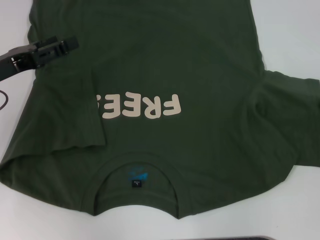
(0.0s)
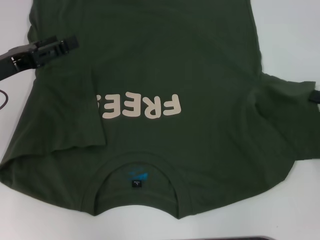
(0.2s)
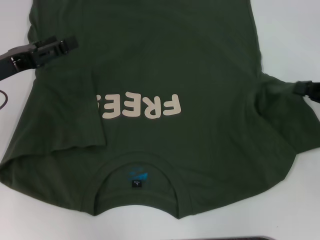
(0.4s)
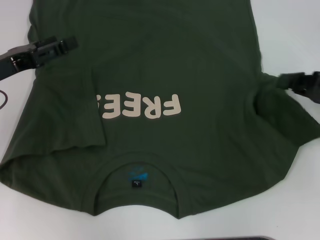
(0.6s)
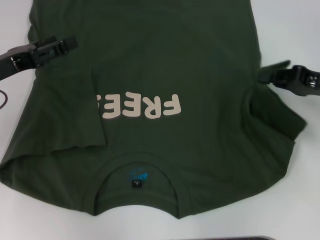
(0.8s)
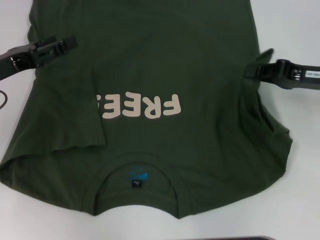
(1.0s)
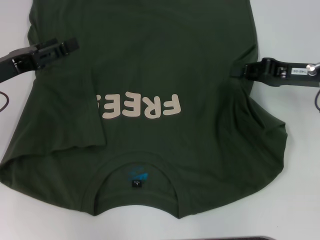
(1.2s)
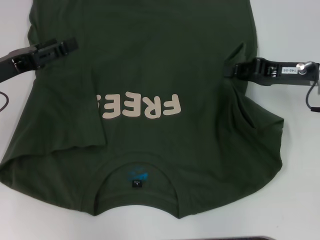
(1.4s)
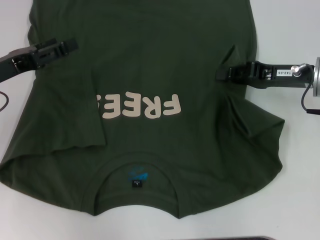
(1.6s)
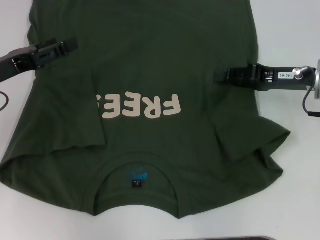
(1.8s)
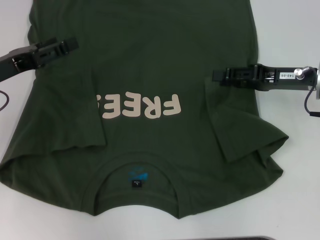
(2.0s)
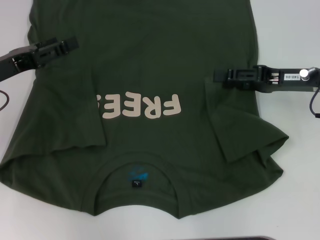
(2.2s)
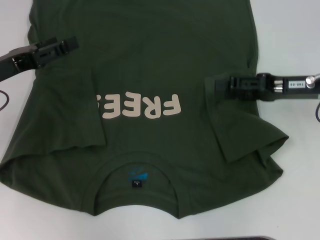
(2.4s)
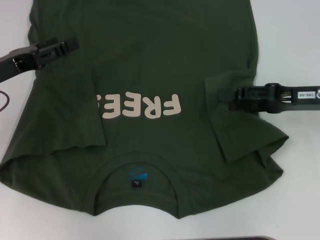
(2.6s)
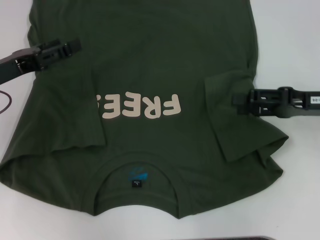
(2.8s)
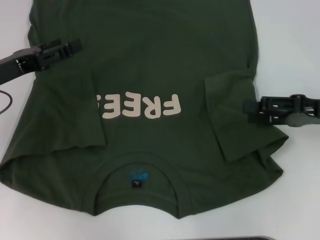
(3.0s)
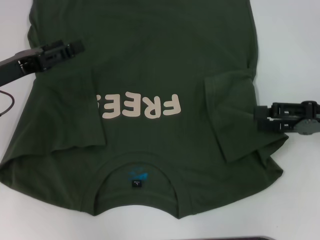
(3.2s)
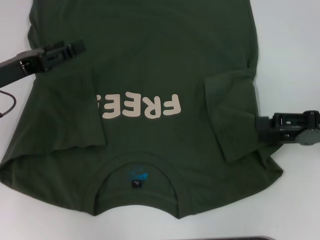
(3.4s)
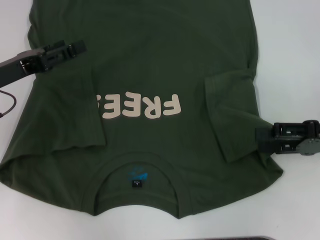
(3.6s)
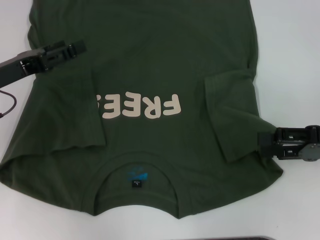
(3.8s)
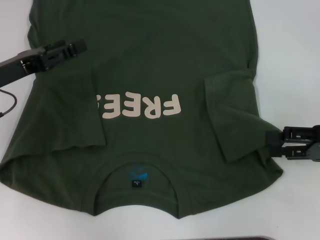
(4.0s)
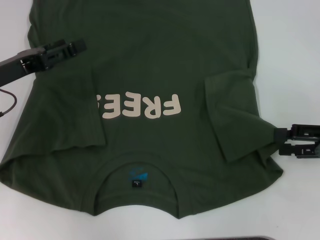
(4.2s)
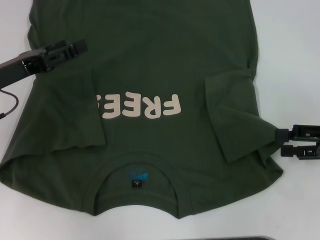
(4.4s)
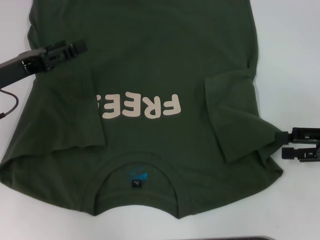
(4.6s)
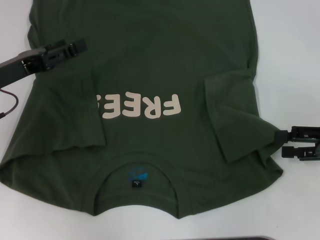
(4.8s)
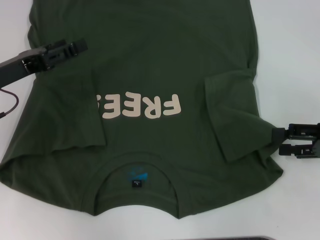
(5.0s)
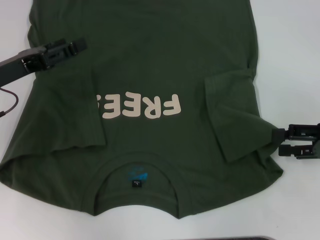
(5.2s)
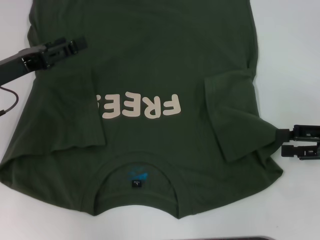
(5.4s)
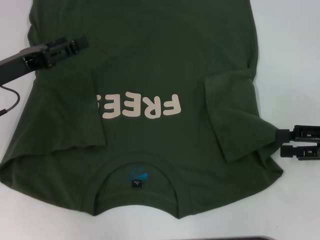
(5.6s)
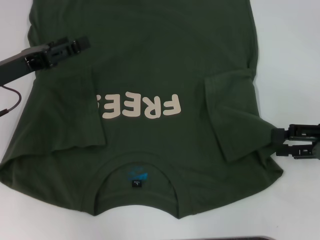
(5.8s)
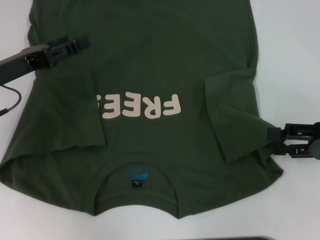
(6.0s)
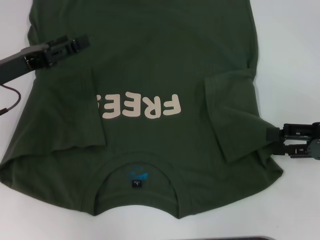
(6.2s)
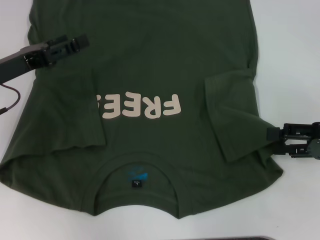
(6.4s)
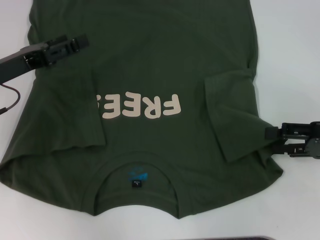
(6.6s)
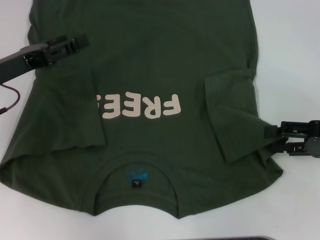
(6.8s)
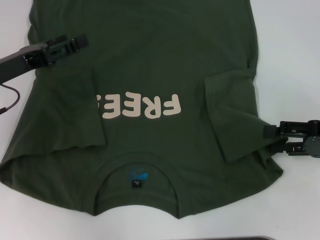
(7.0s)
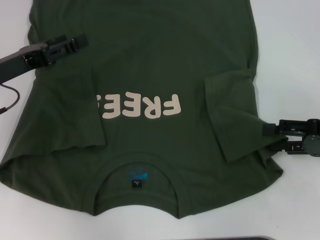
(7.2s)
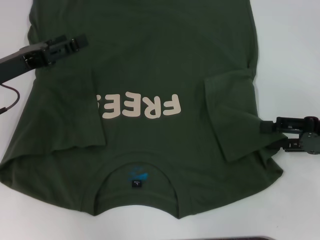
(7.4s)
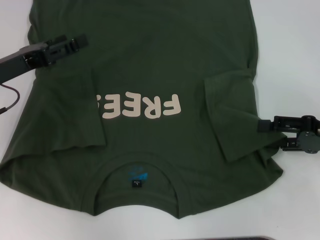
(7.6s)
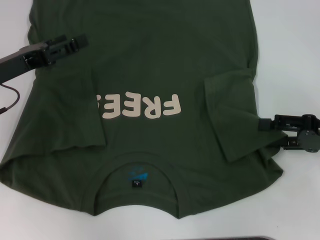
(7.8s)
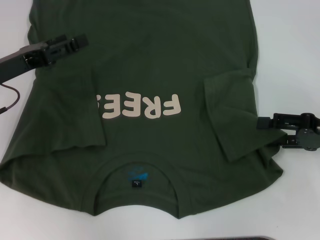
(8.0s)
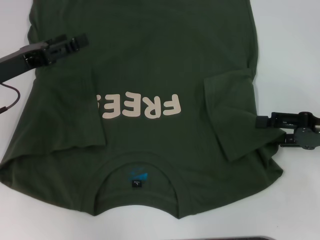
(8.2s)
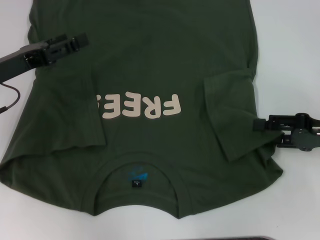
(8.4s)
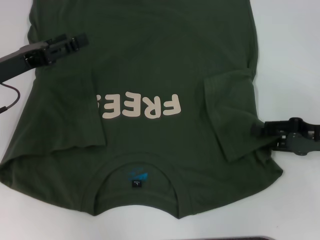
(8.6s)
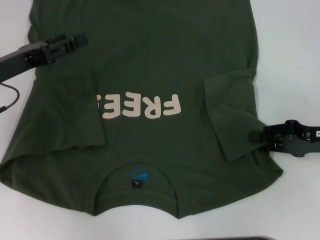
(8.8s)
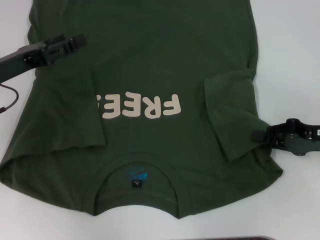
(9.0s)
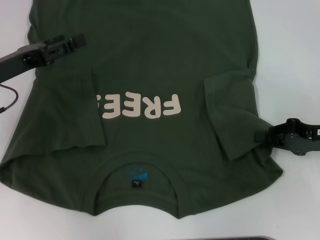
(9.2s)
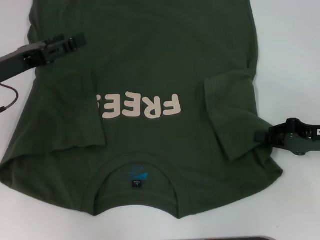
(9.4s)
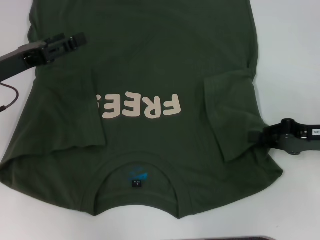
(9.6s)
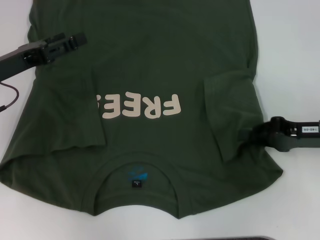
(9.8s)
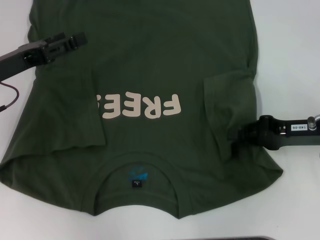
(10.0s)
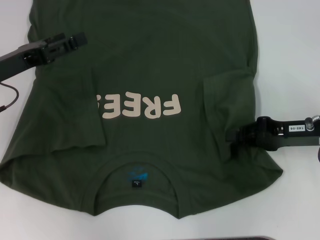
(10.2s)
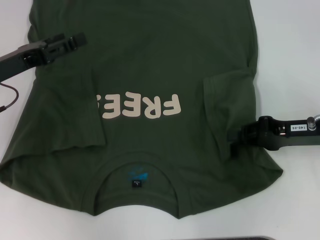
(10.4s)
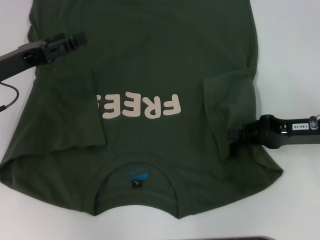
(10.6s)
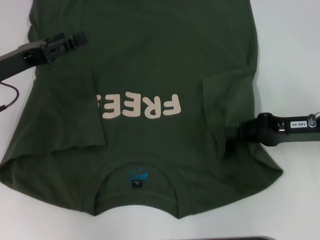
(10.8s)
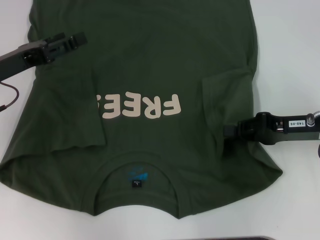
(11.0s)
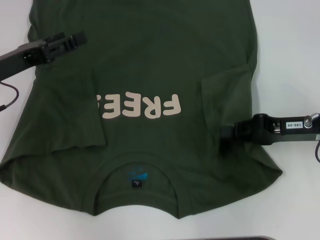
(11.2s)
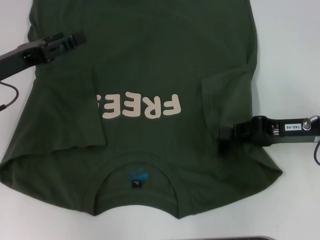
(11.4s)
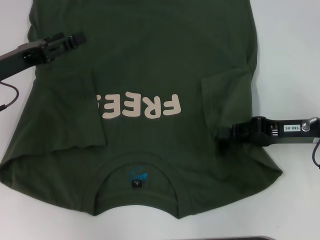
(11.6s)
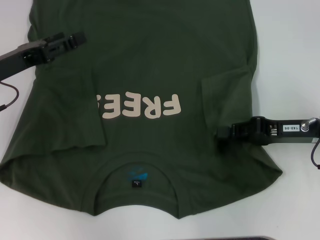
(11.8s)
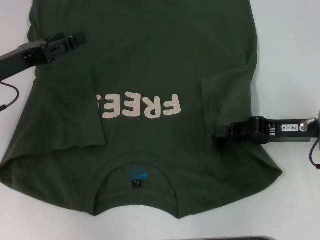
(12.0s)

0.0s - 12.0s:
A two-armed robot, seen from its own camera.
0.0s - 1.6s: The right gripper shifts approximately 15 cm to the left and forward.
1.6s - 3.0s: The right gripper is displaced backward by some 5 cm, and opens.
3.0s - 4.4s: The right gripper changes place by about 5 cm.
4.4s - 6.0s: Neither gripper changes place.
6.0s - 7.6s: There are only small adjustments of the grippers.
7.6s - 9.0s: The right gripper closes.
9.0s - 10.4s: The right gripper closes up.
10.4s - 12.0s: The grippers make only small movements.

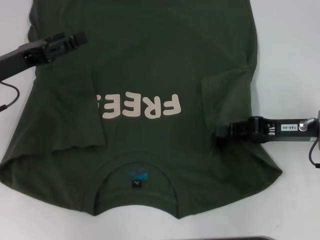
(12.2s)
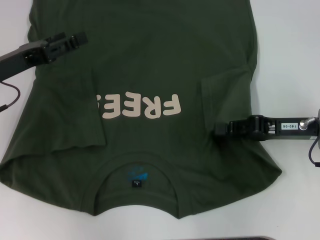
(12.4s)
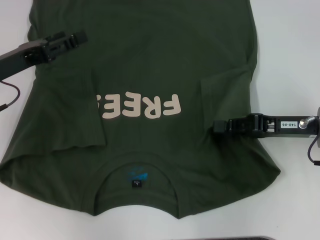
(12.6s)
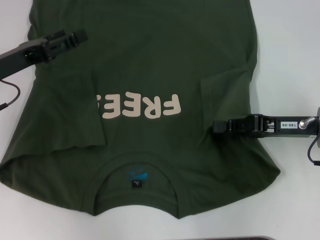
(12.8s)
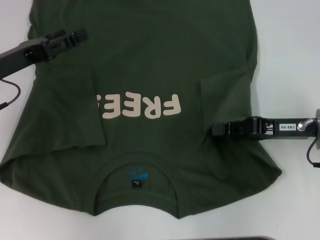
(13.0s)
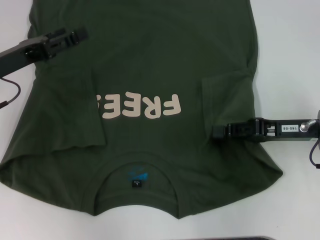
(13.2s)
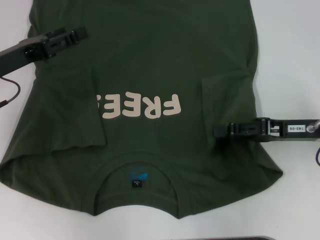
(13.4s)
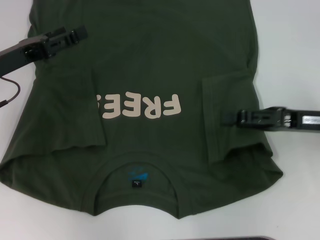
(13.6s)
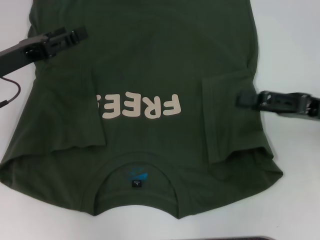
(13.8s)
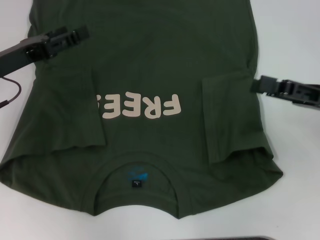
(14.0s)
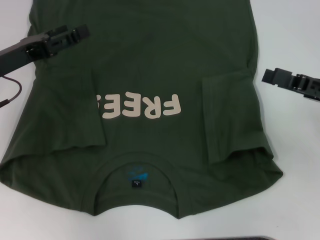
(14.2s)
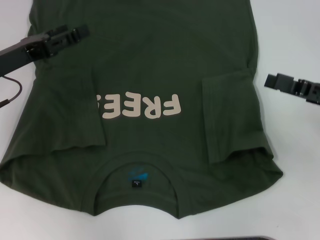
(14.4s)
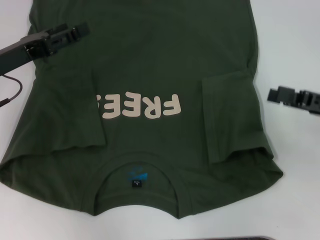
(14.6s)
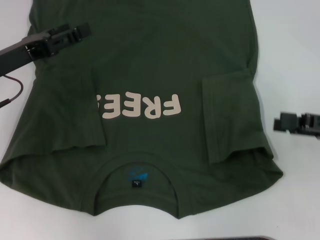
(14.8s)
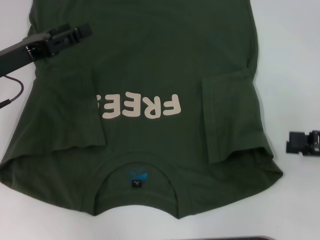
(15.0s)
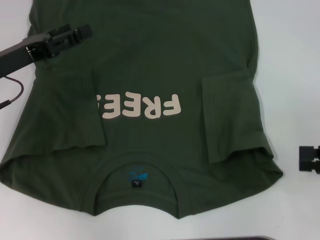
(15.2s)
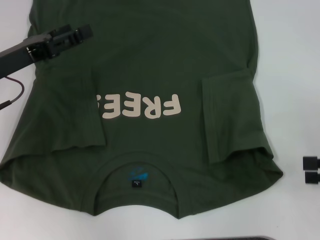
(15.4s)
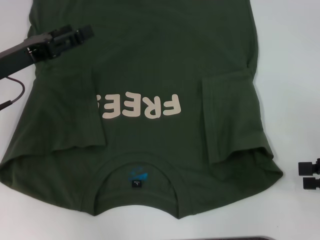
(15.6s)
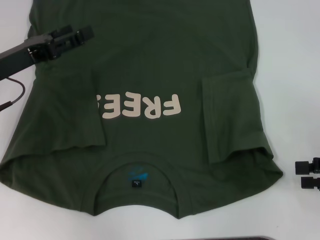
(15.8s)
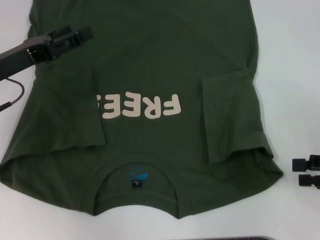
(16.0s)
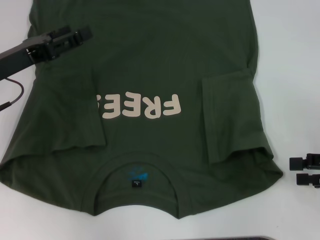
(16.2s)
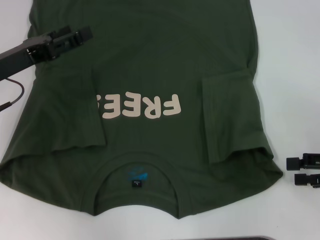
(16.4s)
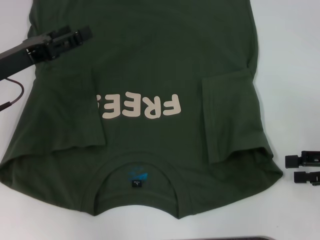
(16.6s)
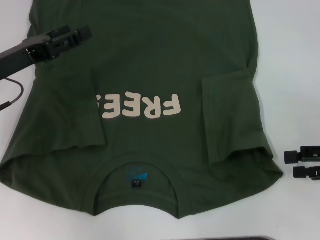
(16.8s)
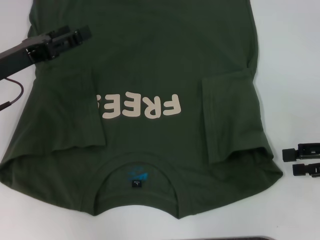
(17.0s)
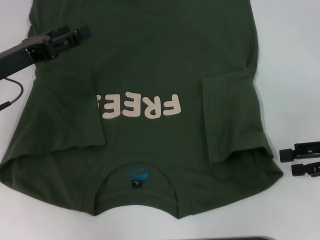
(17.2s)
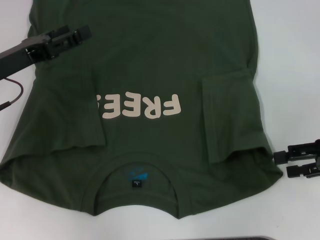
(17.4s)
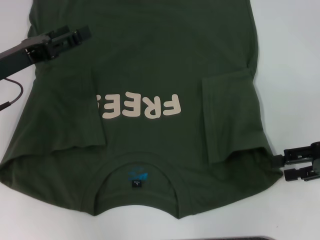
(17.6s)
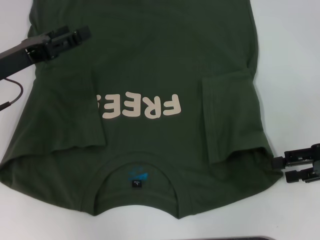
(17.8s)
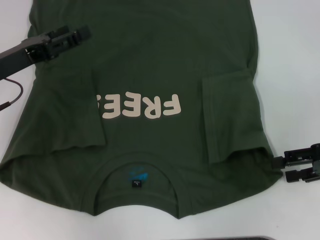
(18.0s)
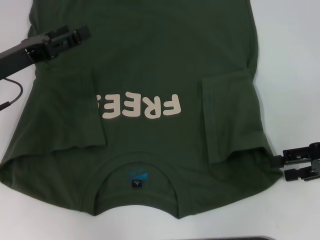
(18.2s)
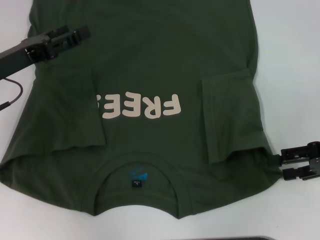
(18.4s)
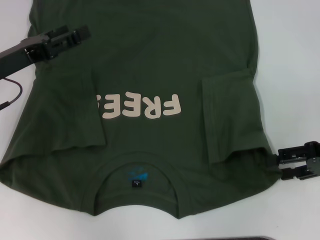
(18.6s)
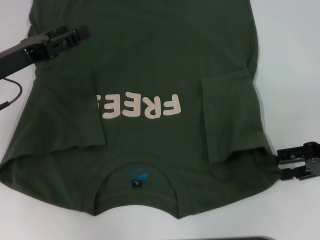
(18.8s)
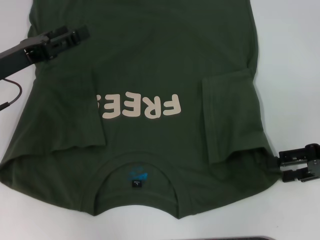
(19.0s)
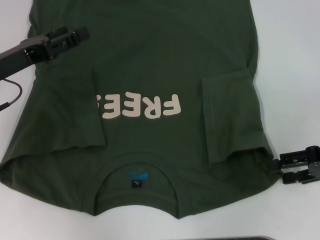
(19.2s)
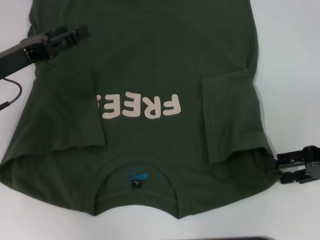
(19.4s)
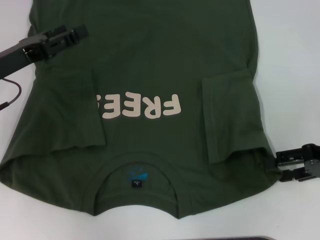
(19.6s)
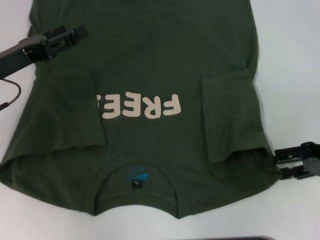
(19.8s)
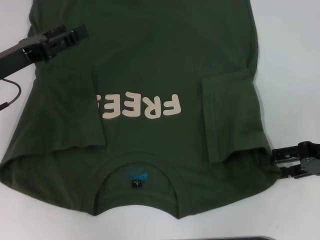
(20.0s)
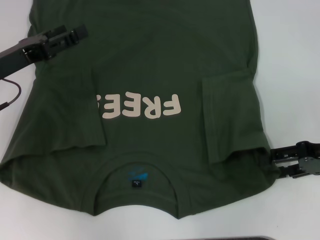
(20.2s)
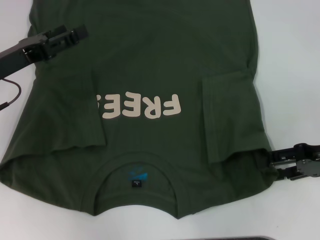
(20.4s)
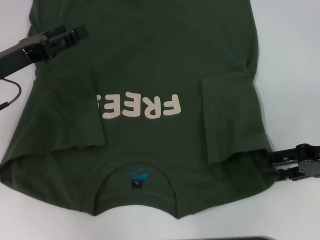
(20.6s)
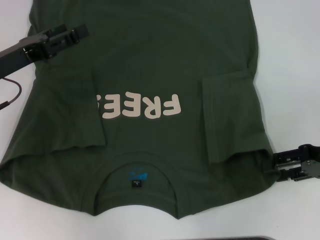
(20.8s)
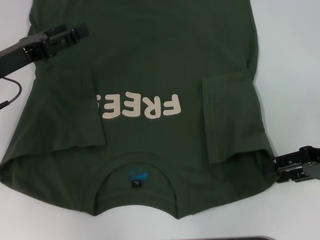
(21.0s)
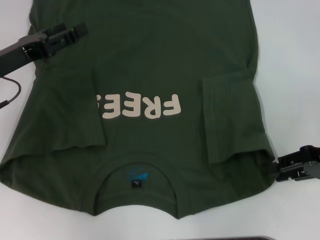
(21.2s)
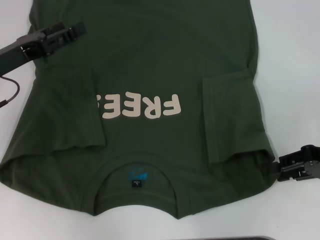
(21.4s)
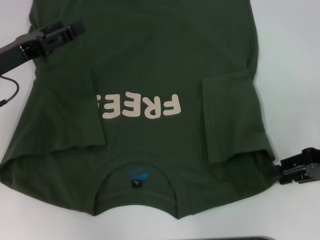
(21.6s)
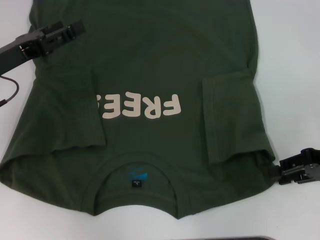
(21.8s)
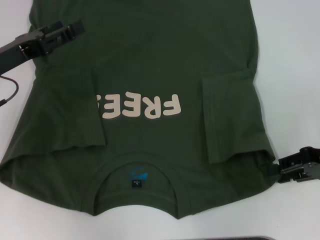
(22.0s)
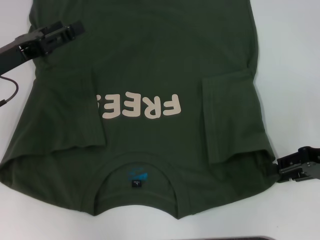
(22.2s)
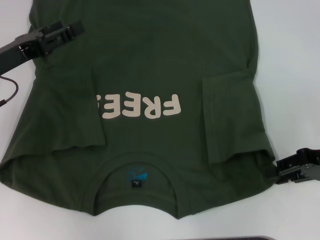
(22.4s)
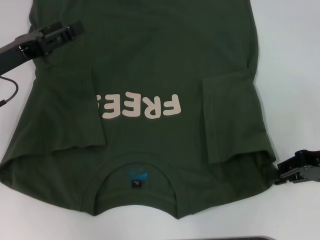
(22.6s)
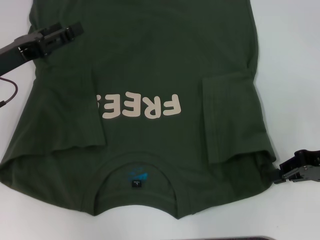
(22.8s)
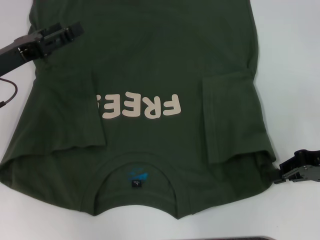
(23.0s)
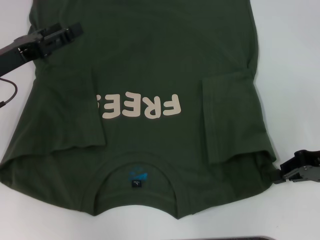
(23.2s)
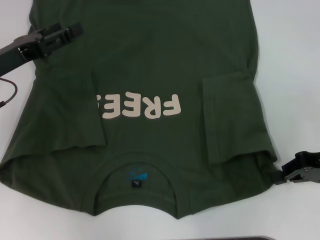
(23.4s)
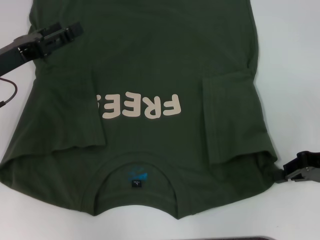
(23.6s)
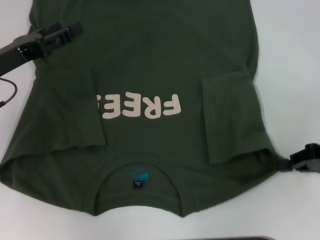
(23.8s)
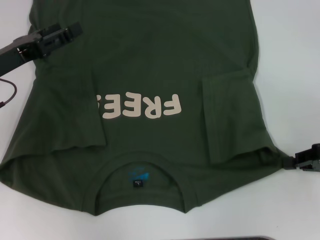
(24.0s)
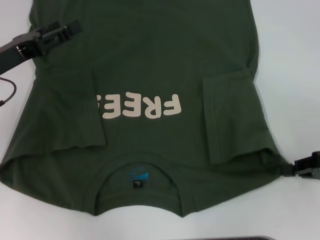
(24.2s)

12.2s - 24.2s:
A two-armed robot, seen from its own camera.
Step, 12.2s - 15.4s: Fold the bottom right sleeve with your right hand.
12.2s - 13.8s: The right gripper opens its fingers.
13.8s - 15.2s: The right gripper is displaced to the right and backward by some 10 cm, and opens.
15.2s - 16.6s: The grippers stay close to where they were, moving slightly.
16.6s - 18.2s: There are only small adjustments of the grippers.
18.2s - 19.8s: Neither gripper changes place.
19.8s - 21.2s: Neither gripper changes place.
21.2s - 22.6s: The two grippers keep their place.
22.6s - 24.2s: The grippers stay close to where they were, moving slightly.
